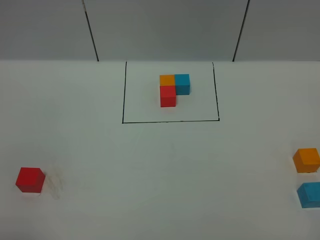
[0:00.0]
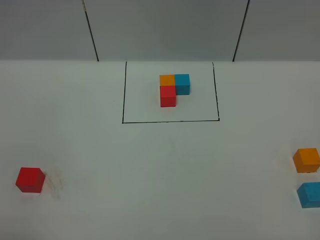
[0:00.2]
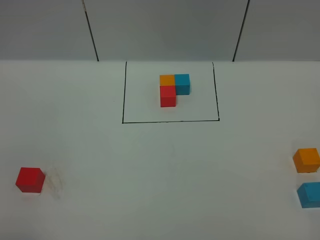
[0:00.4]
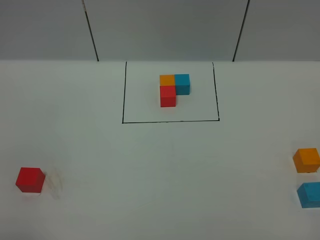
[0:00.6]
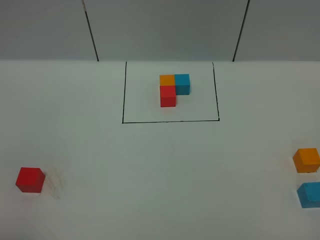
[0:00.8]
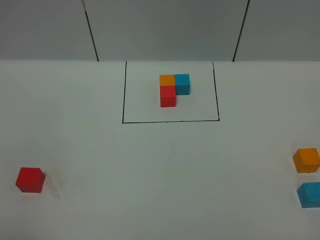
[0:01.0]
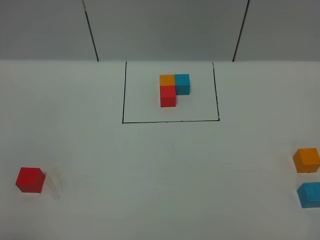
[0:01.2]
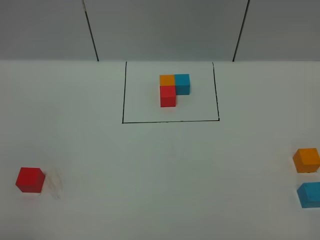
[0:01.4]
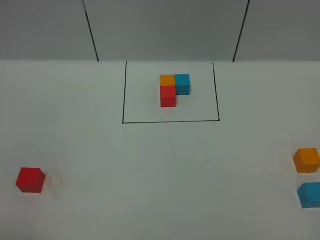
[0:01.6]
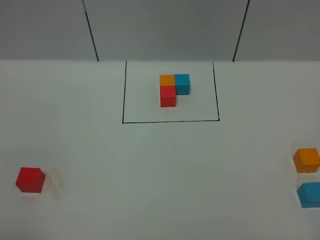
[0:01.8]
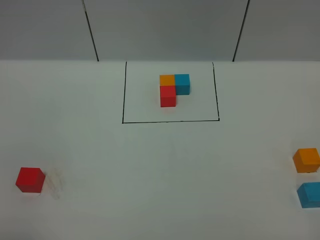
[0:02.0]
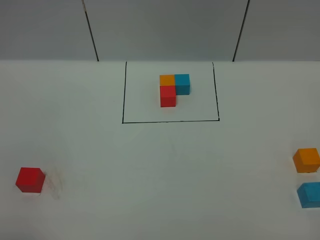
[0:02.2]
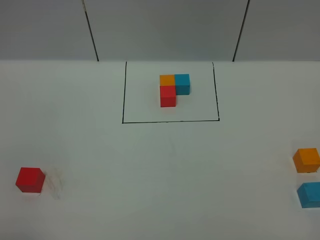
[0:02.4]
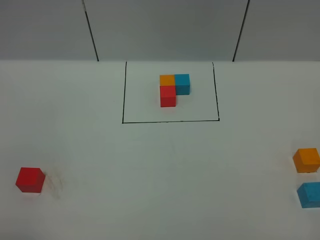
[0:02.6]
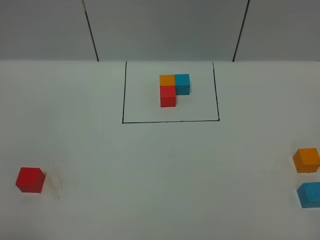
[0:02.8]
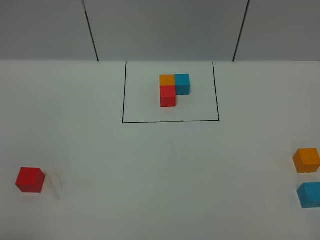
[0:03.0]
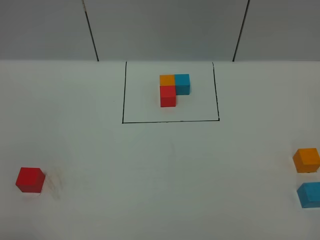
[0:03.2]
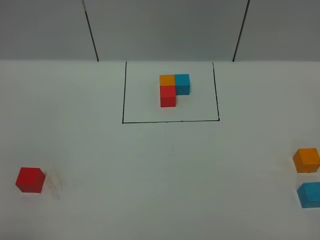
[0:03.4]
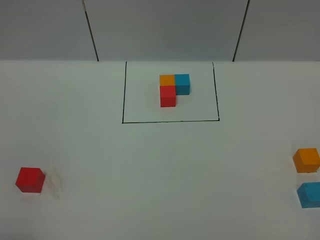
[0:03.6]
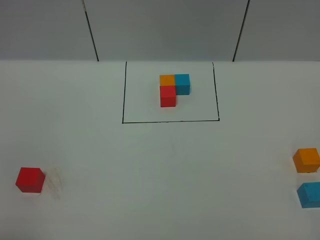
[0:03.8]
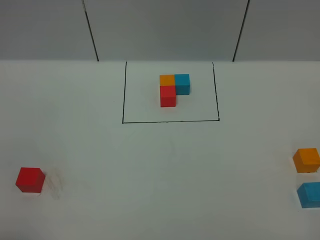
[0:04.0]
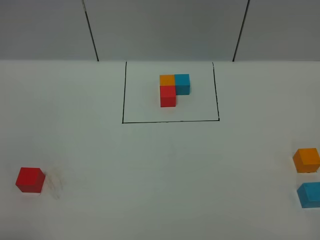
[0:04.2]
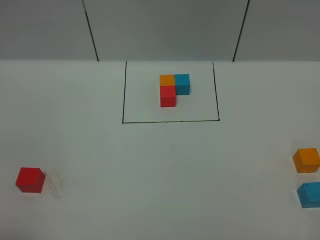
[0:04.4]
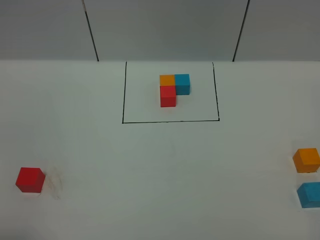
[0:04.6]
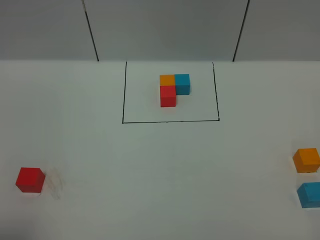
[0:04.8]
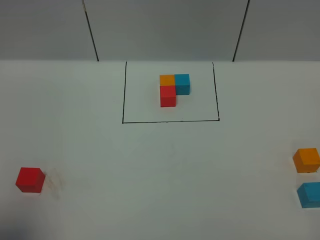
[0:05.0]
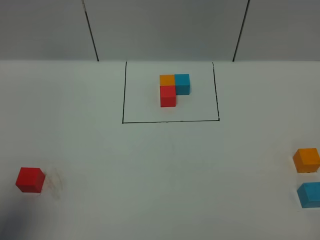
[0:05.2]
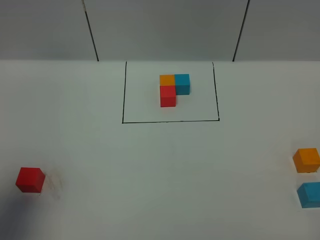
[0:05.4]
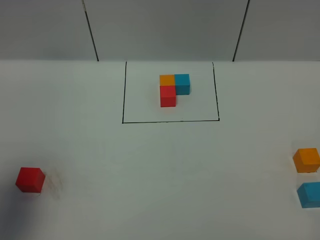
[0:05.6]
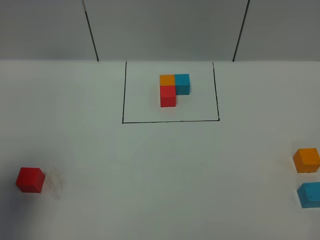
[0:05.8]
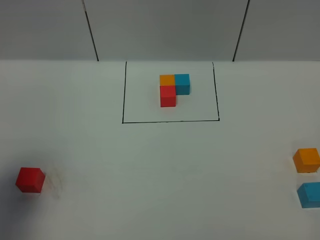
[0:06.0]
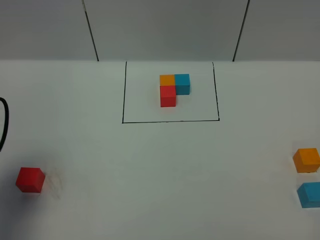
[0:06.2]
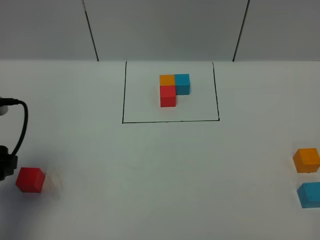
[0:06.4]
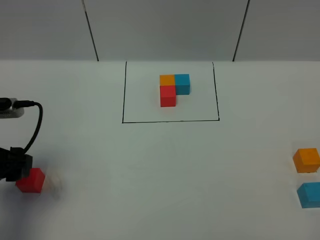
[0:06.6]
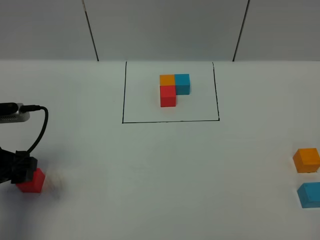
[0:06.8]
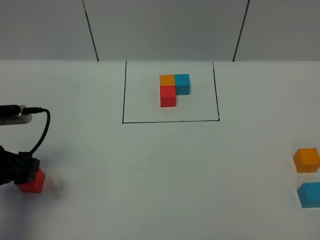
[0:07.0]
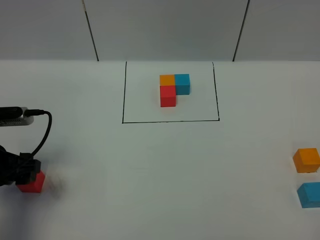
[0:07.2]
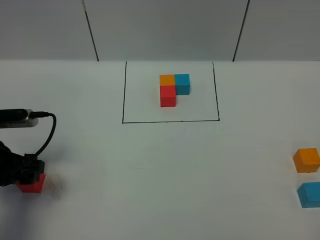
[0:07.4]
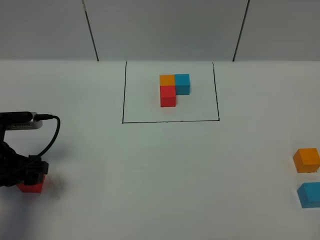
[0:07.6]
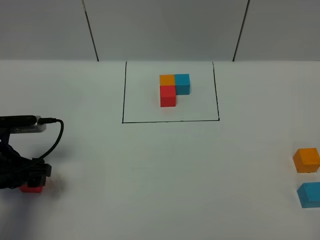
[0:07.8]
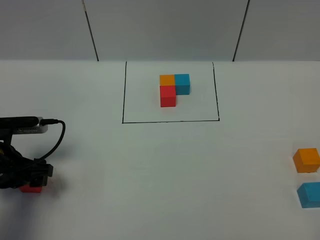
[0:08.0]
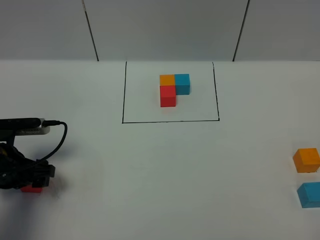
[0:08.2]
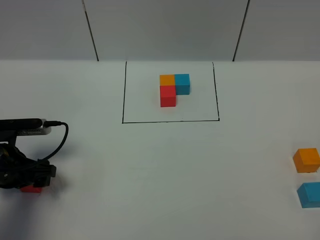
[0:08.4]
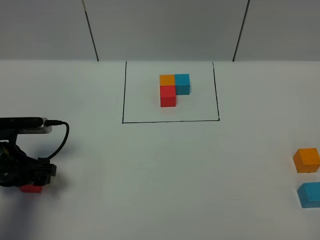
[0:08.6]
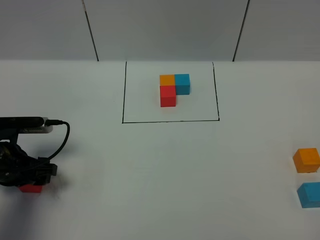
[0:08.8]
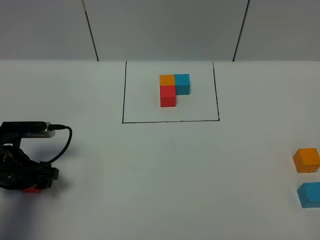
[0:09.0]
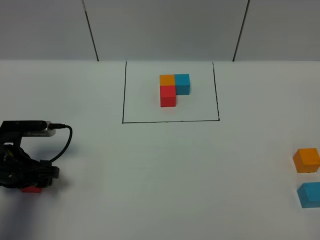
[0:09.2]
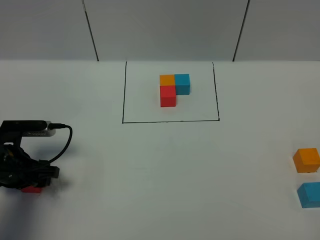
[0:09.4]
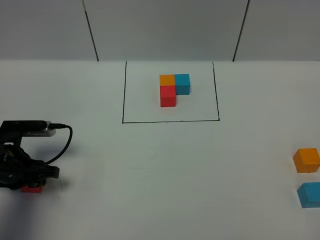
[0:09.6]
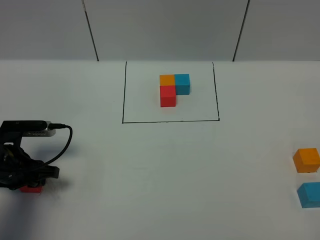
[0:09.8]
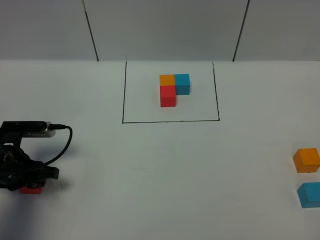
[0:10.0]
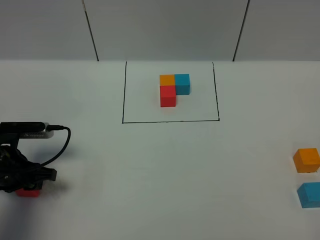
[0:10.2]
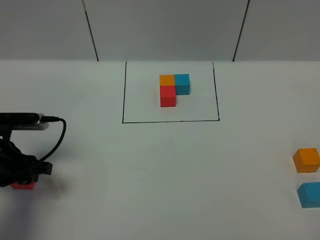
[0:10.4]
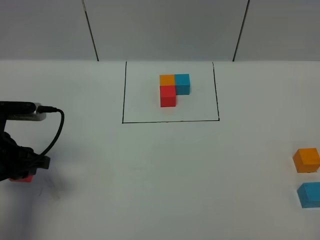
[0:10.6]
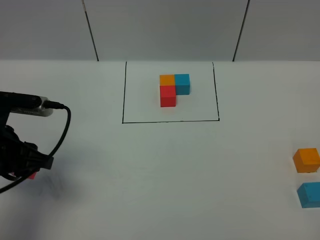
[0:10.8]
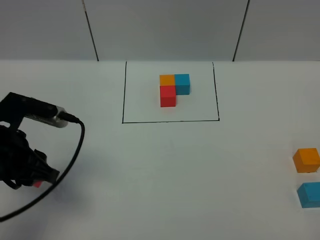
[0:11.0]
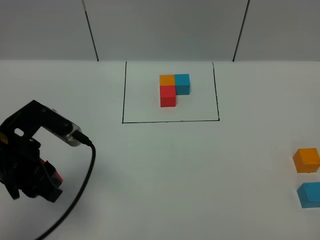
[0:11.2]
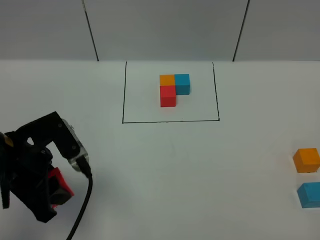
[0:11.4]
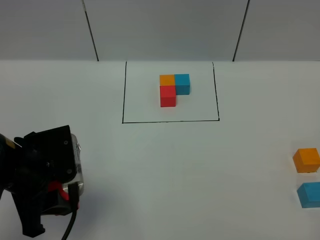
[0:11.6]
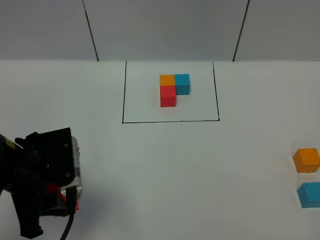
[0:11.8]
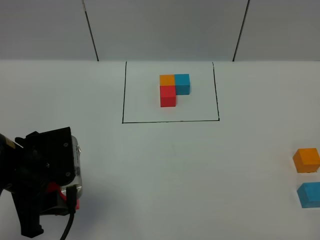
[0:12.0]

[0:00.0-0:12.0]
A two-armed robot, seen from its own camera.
Task of the whole recording: According to the building block template in front, assemble the scattered blocks together.
0:00.0 to 0:03.0: Both grippers stay about where they are.
0:04.4 to 0:06.0: The left gripper travels forward by about 15 cm.
0:06.0 to 0:07.6: The left gripper goes about 15 cm downward and forward.
0:07.6 to 0:09.0: The grippers make only small movements.
0:09.0 to 0:10.4: The left gripper closes up.
0:10.4 to 0:12.0: The left gripper heads to the right, upward and backward, covering roughly 10 cm.

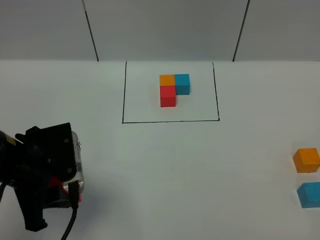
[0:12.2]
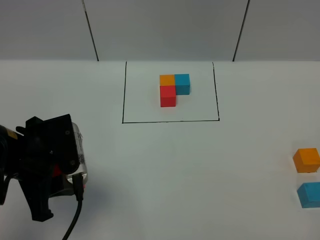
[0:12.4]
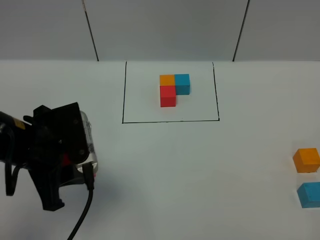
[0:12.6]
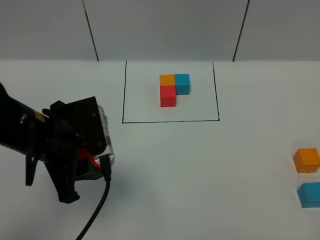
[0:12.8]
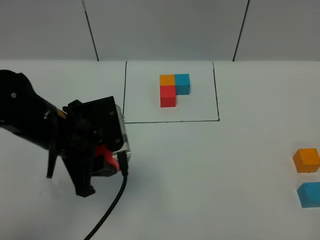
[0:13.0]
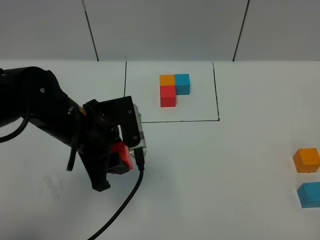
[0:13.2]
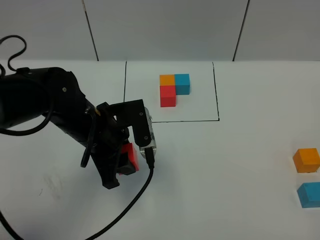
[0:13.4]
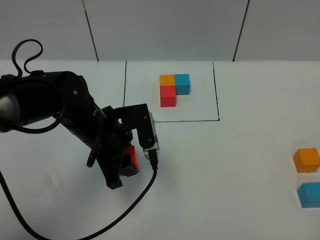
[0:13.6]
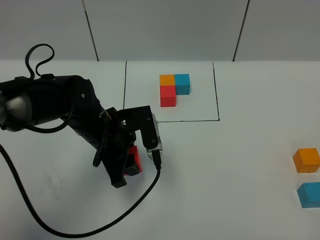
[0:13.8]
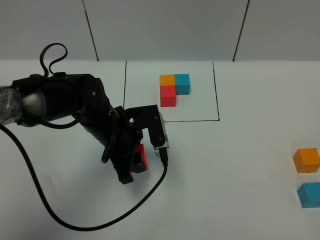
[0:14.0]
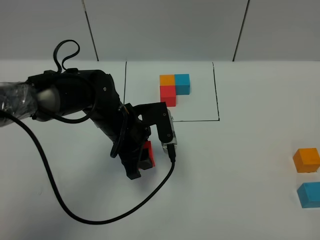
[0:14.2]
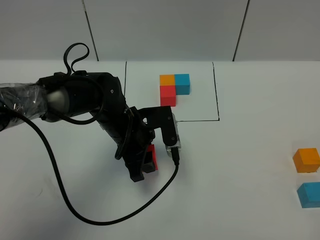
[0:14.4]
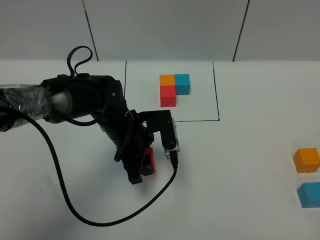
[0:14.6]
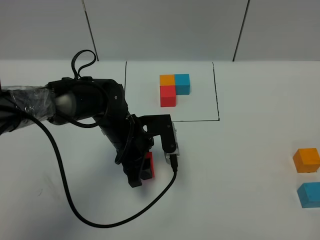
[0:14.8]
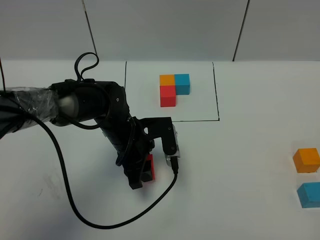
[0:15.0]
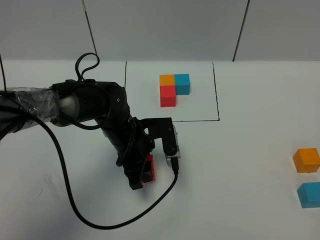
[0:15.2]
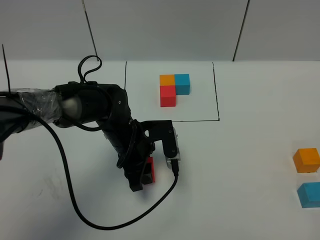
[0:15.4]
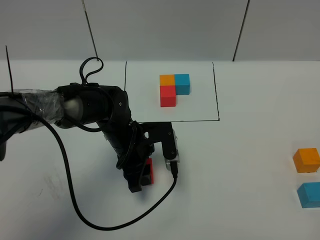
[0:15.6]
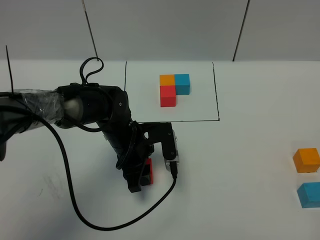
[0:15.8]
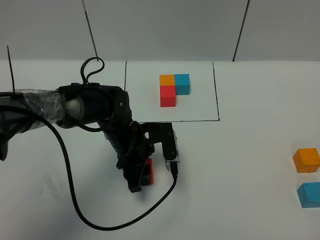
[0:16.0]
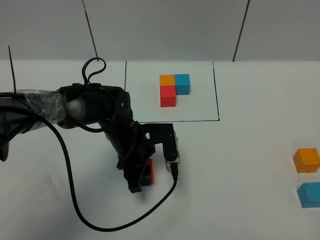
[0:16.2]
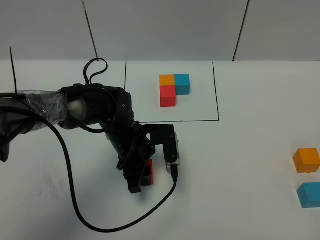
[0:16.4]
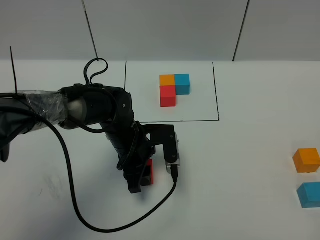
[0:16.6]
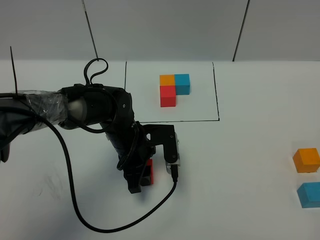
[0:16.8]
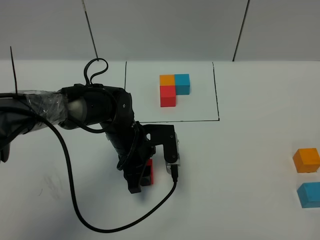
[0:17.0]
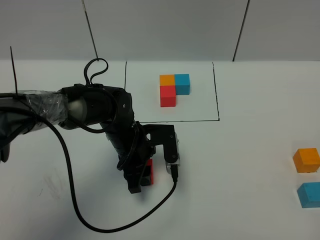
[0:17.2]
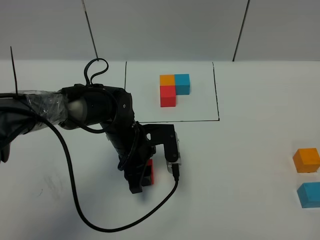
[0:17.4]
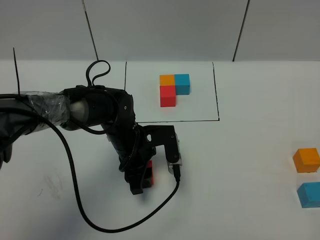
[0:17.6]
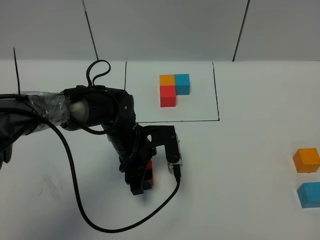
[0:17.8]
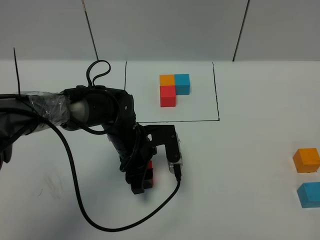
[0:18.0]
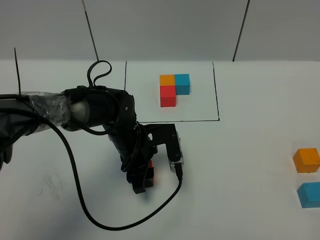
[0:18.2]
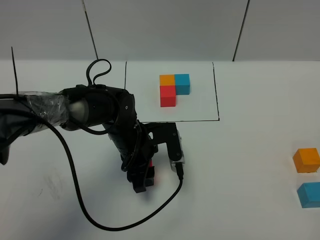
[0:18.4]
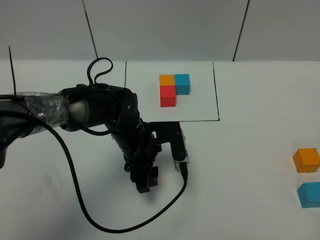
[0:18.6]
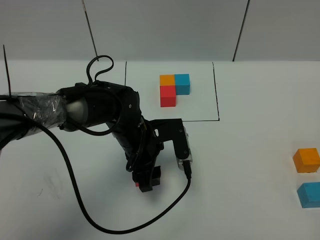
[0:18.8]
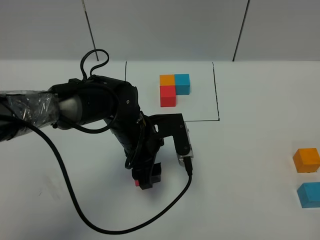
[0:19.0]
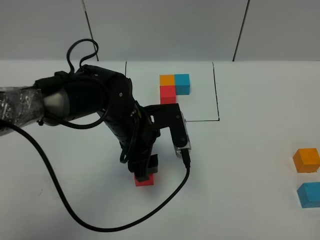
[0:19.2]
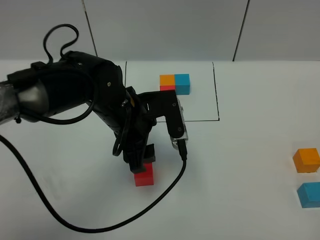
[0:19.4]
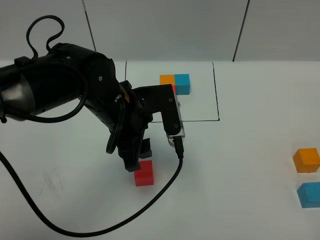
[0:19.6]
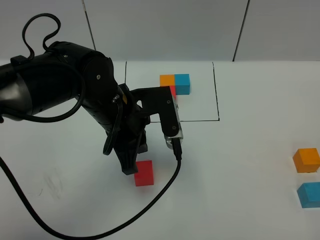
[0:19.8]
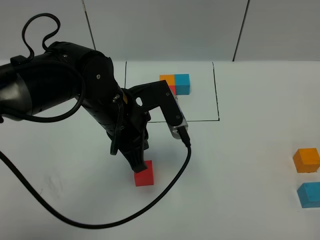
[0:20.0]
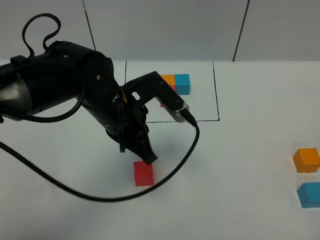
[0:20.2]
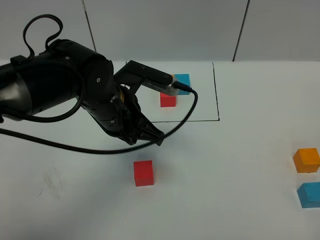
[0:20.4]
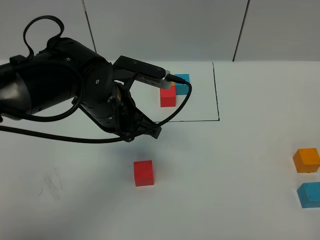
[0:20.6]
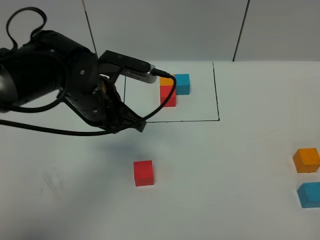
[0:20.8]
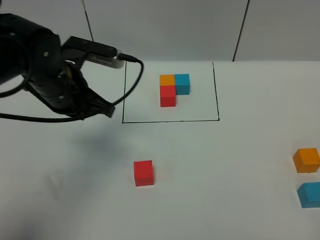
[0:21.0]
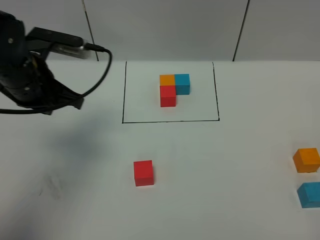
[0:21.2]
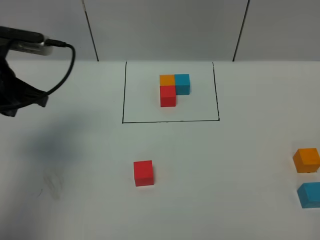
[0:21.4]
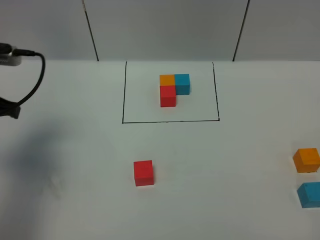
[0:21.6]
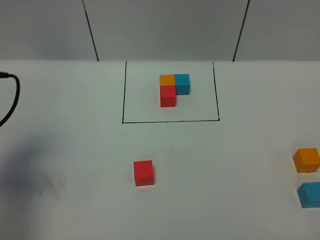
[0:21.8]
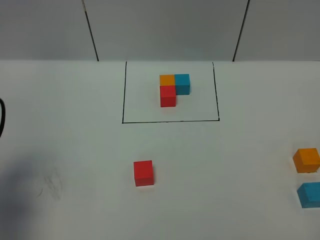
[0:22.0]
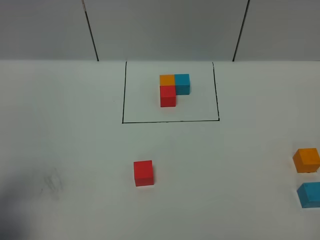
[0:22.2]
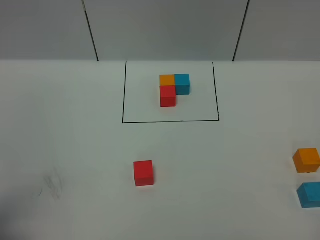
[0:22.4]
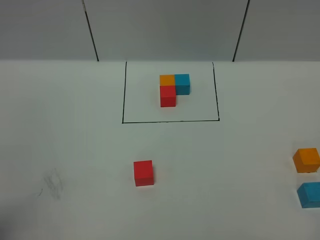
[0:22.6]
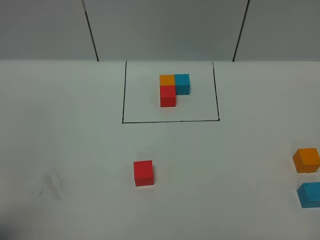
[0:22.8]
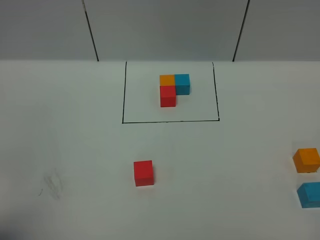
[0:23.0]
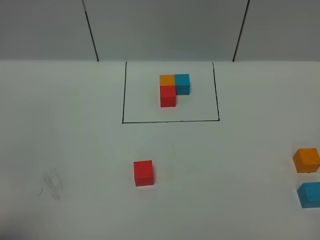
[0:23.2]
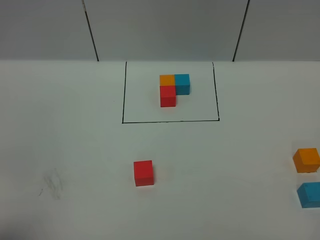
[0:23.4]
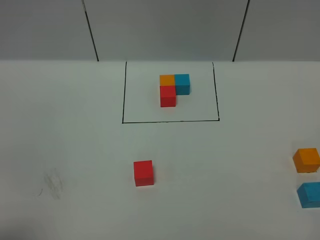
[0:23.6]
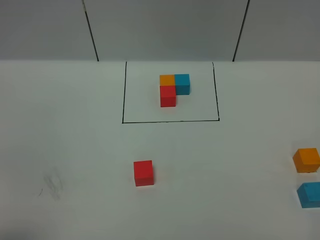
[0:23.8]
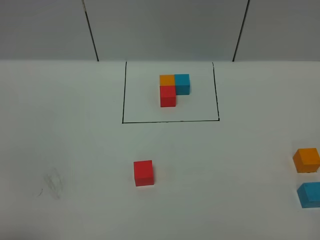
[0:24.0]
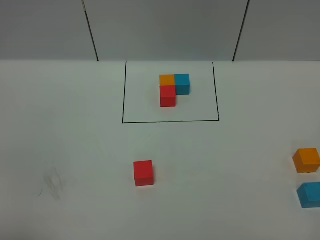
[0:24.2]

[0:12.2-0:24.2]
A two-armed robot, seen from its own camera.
Task of the whole recording: According to the building block template in front, assemble the scattered blocks together.
Step, 0:12.2 to 0:19.4: Put the red cube in the center of the table.
0:12.2 to 0:13.8: The left gripper heads to the right, forward and downward, covering about 15 cm.
0:13.8 to 0:15.2: The left gripper moves approximately 5 cm.
0:15.2 to 0:16.6: Both grippers stay about where they are.
0:16.6 to 0:18.2: Neither gripper changes place.
0:18.2 to 0:19.8: The left gripper goes approximately 15 cm upward, and closes.
0:19.8 to 0:21.2: The left gripper travels to the left by roughly 15 cm.
0:21.2 to 0:22.6: The left gripper heads backward and to the left, covering roughly 25 cm.
